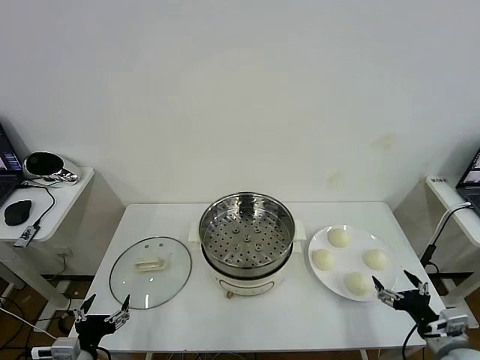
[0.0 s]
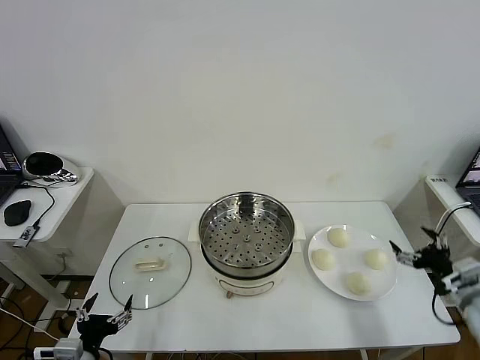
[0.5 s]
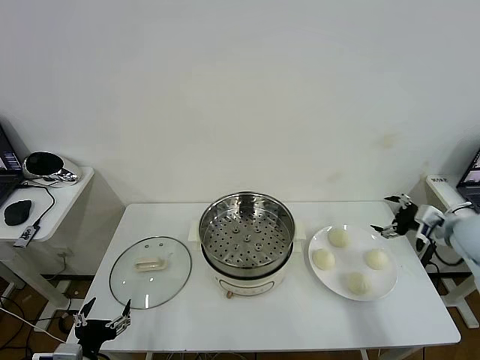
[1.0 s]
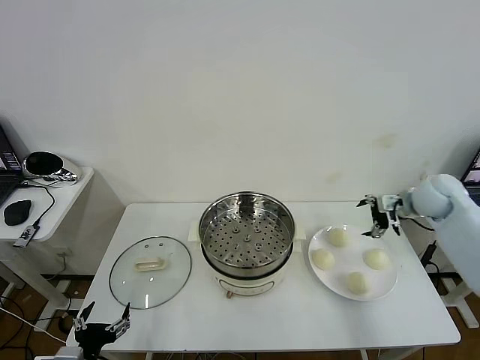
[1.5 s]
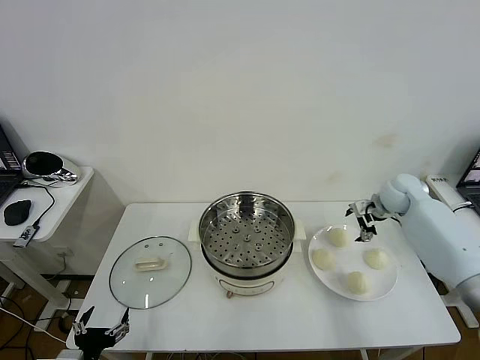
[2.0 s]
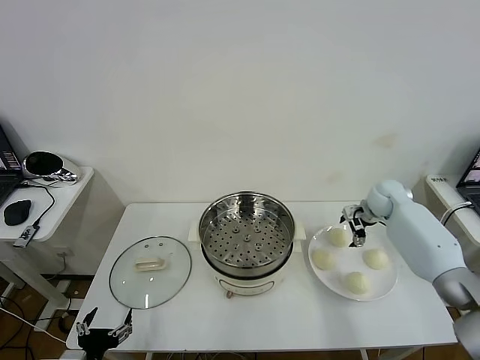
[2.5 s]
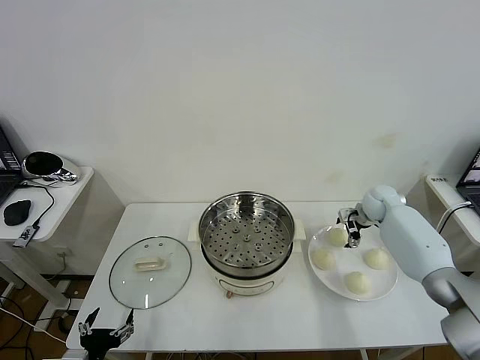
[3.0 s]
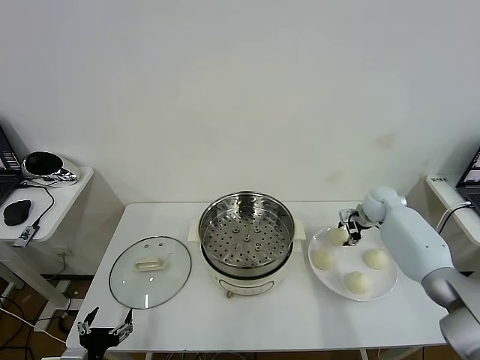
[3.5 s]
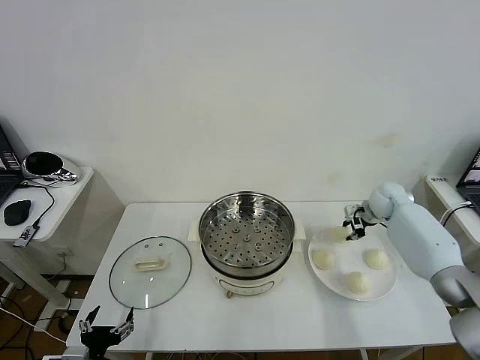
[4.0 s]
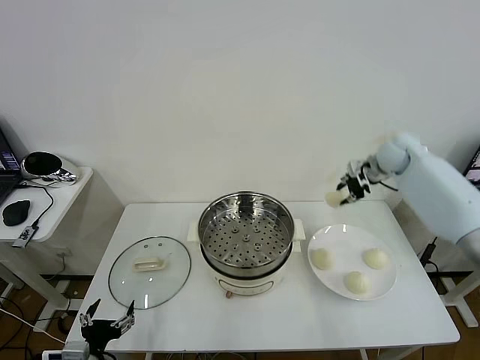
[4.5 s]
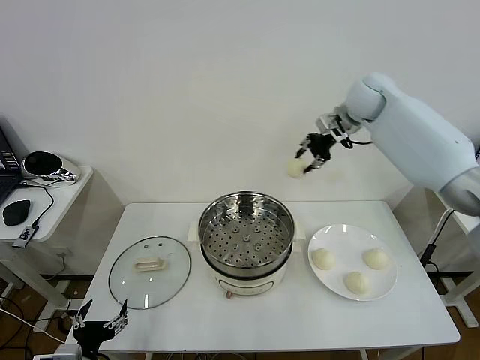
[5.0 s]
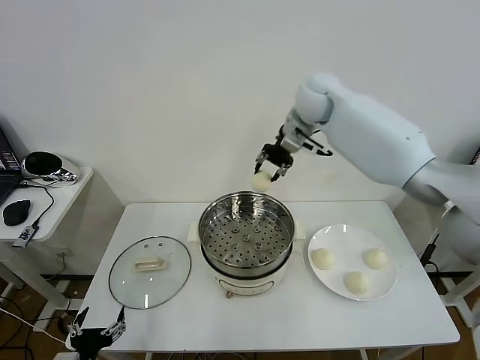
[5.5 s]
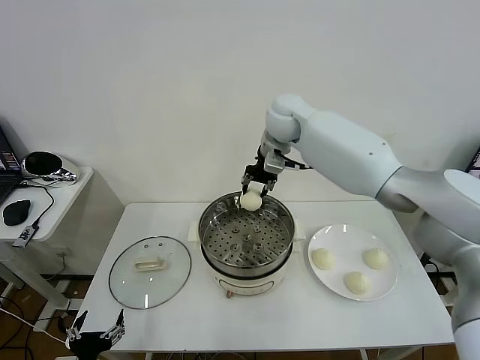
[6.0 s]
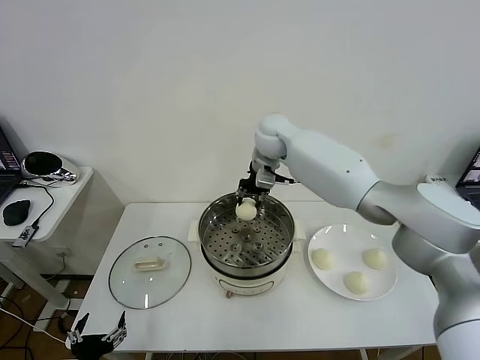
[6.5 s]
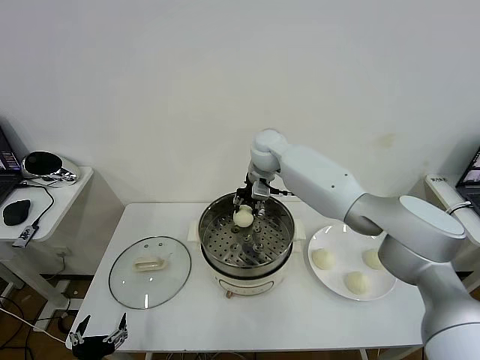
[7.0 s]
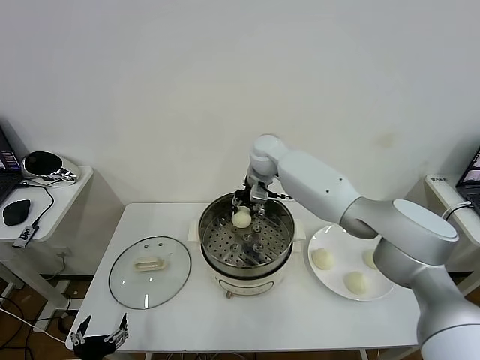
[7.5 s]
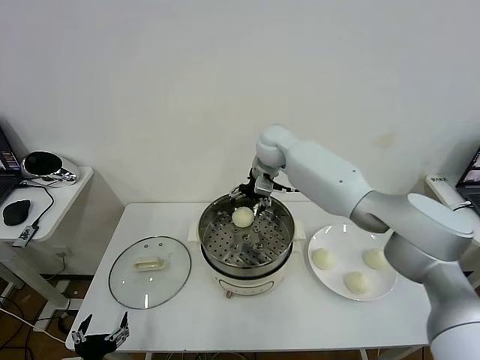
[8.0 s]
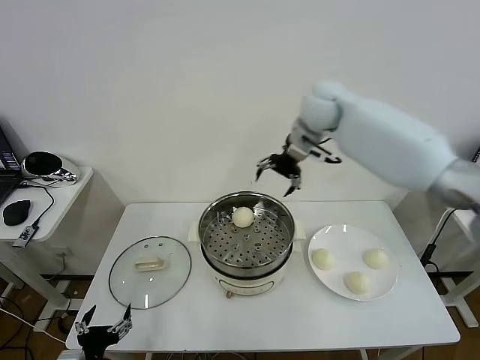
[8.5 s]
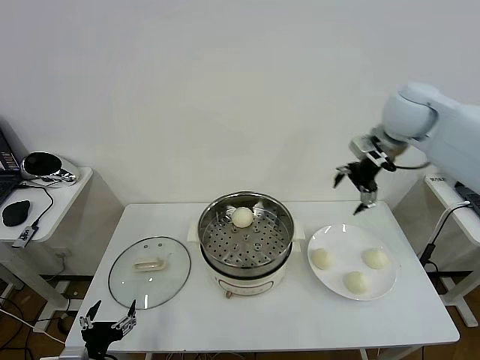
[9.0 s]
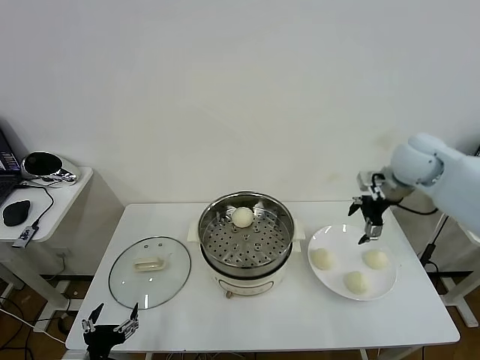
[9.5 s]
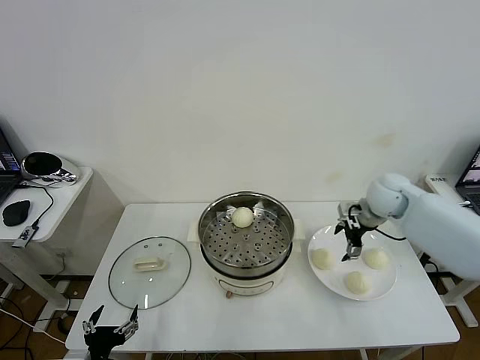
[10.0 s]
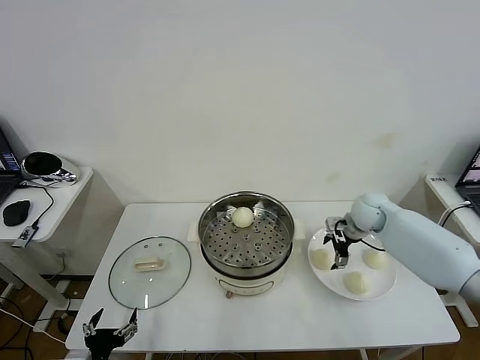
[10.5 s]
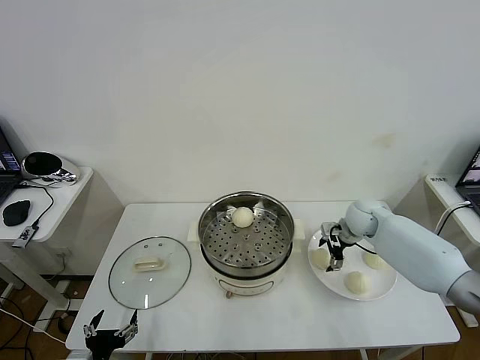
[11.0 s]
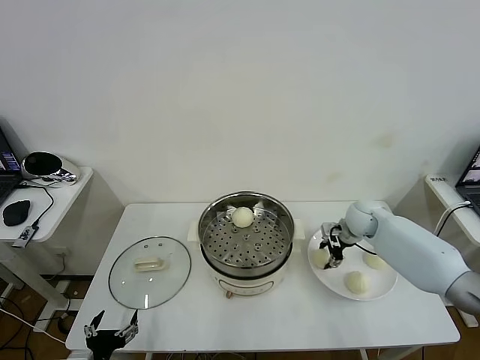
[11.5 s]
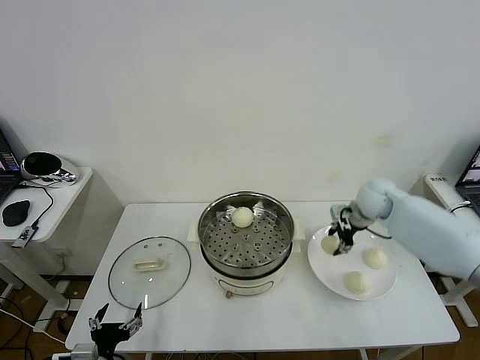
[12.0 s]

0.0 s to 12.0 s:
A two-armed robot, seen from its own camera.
Task of the whole recording: take steamed baozi put them in steamer then cover it.
Step, 0.0 to 3.5 s: Grasp the baozi in the plate with right gripper.
Step, 4.0 to 7.5 s: Place the baozi on the steamer with right gripper.
Step, 8.0 to 11.5 s: Grasp the baozi in the plate with right gripper.
2.0 to 4.0 s: The right gripper shifts by approximately 5 cm, and closes.
4.0 to 6.0 s: The right gripper travels to the left and upward by about 40 cm.
6.0 to 8.0 s: The right gripper is displaced downward by about 10 cm, and opens its fingers.
8.0 to 10.0 s: The right gripper goes approximately 30 cm to the right and backward.
10.0 to 12.0 s: The right gripper moves roughly 10 cm downward and comes back, and closes its fingers.

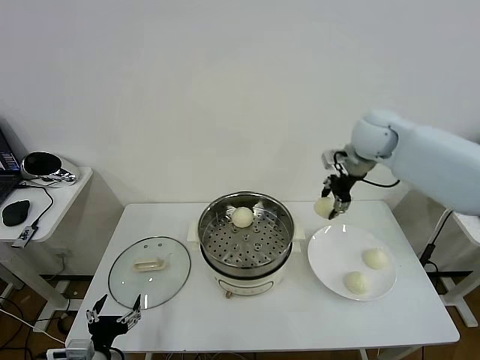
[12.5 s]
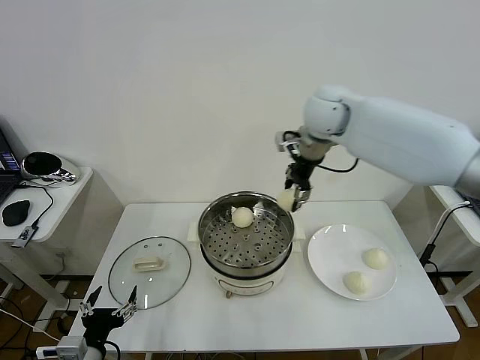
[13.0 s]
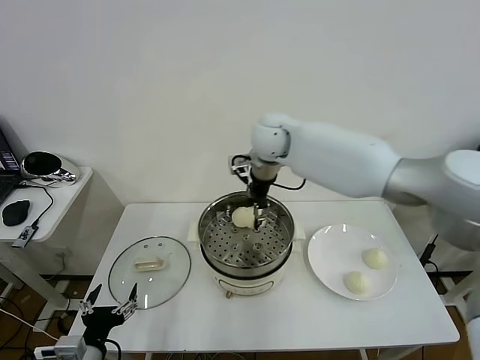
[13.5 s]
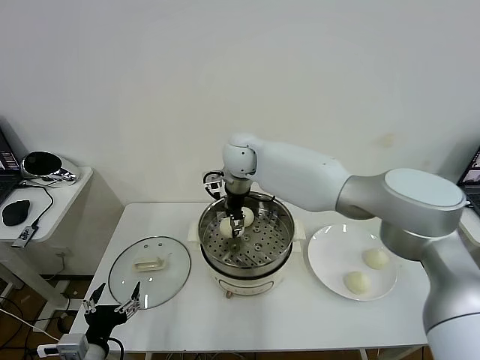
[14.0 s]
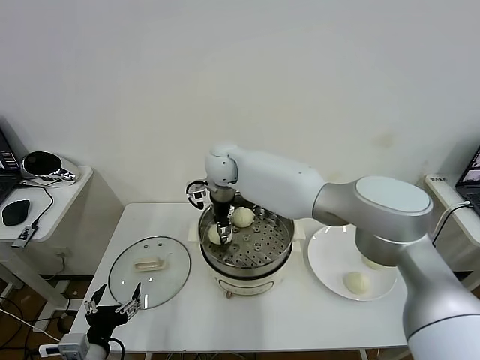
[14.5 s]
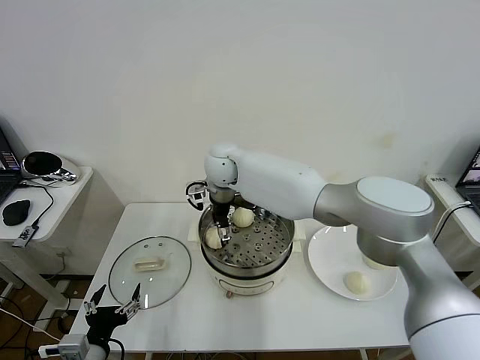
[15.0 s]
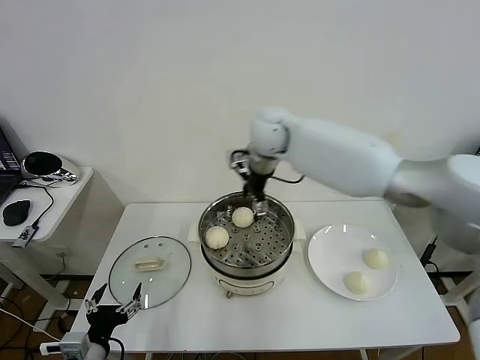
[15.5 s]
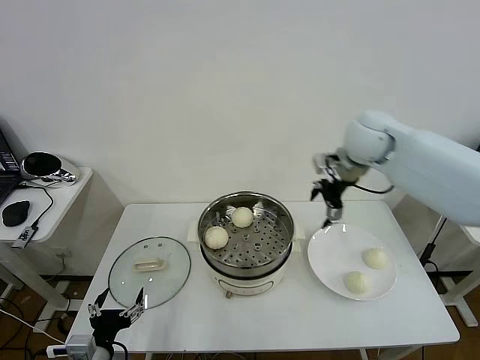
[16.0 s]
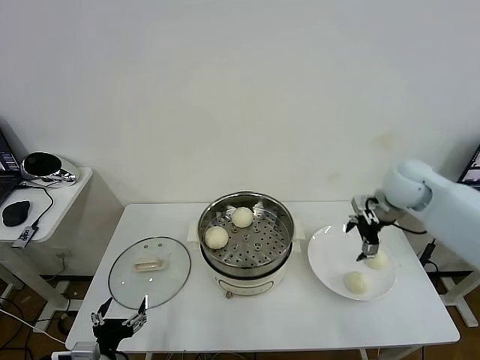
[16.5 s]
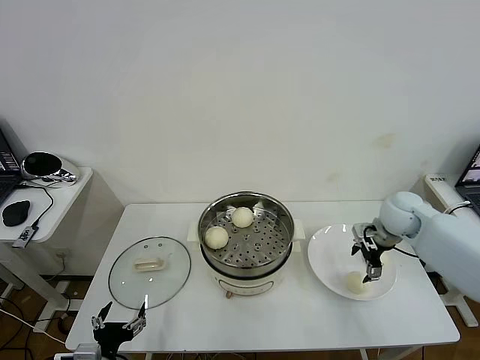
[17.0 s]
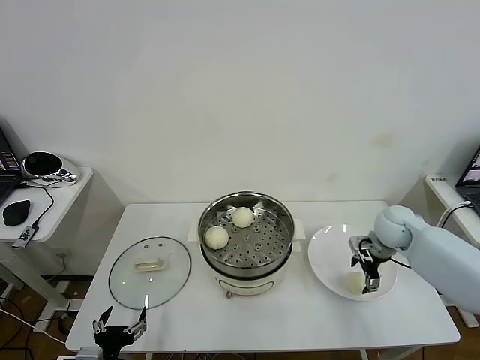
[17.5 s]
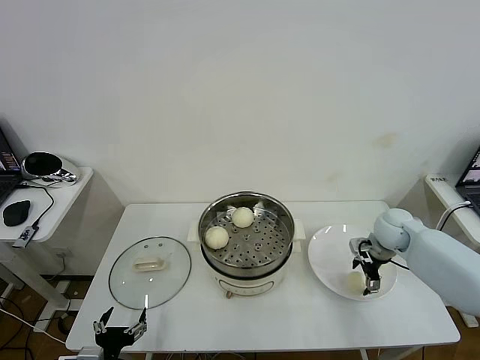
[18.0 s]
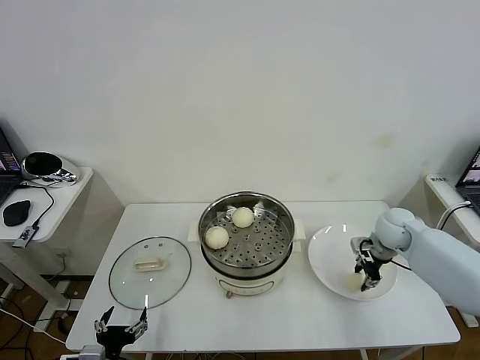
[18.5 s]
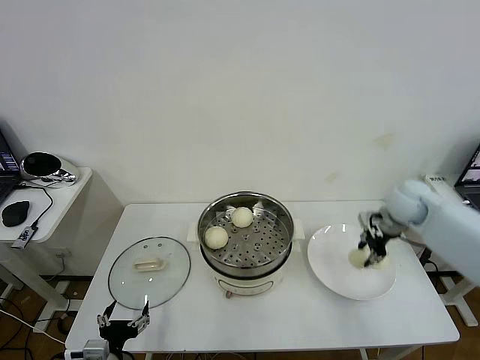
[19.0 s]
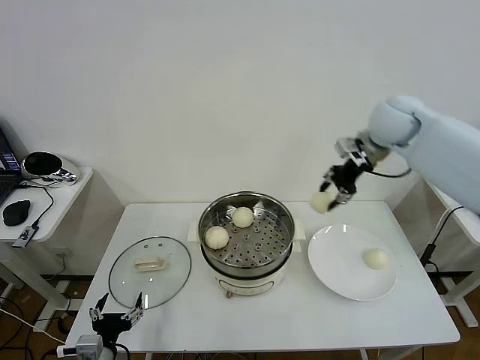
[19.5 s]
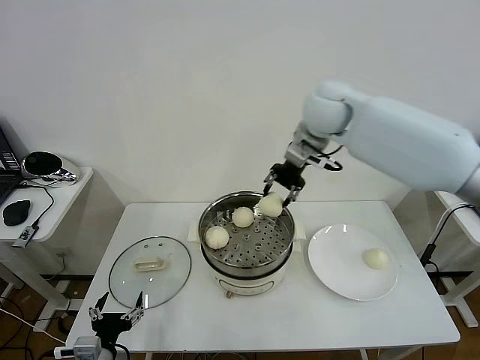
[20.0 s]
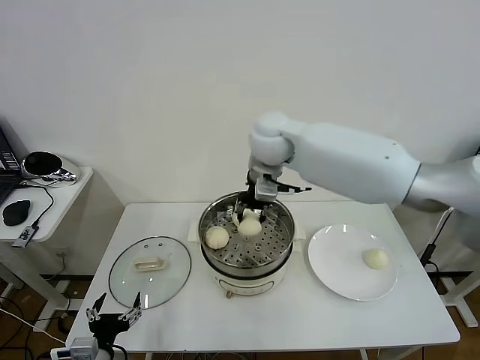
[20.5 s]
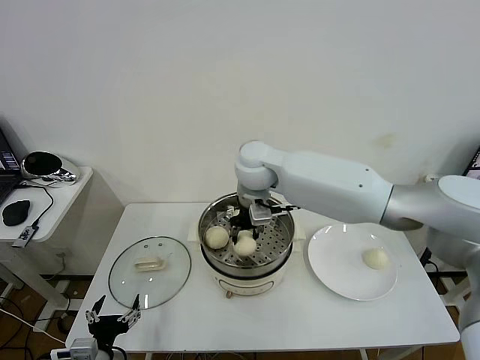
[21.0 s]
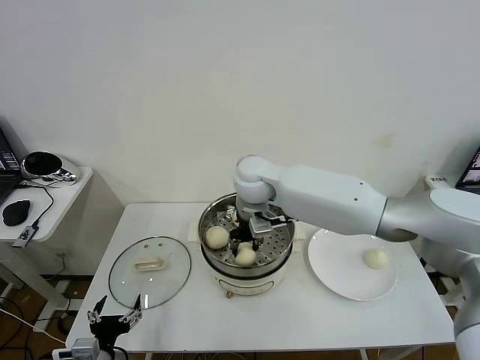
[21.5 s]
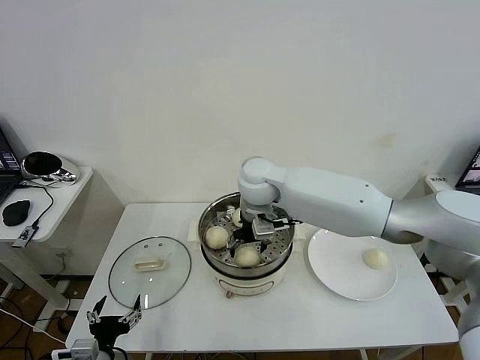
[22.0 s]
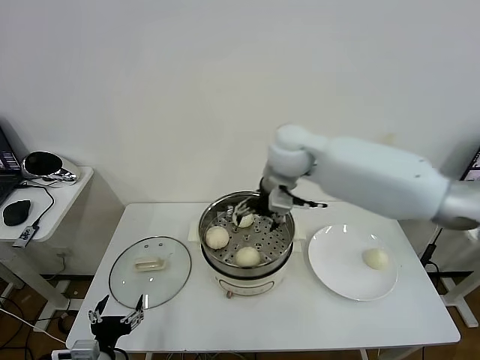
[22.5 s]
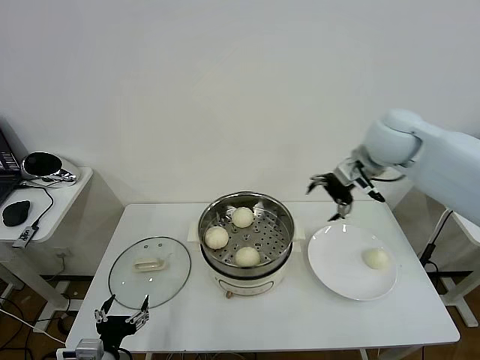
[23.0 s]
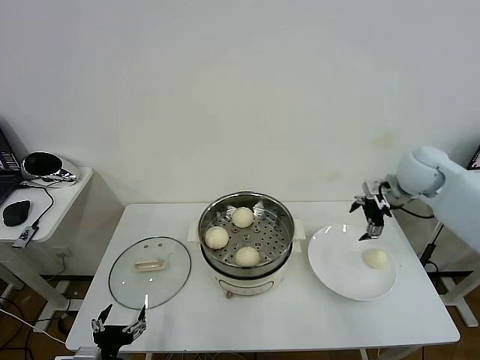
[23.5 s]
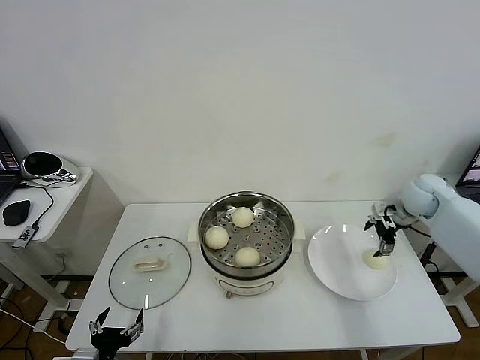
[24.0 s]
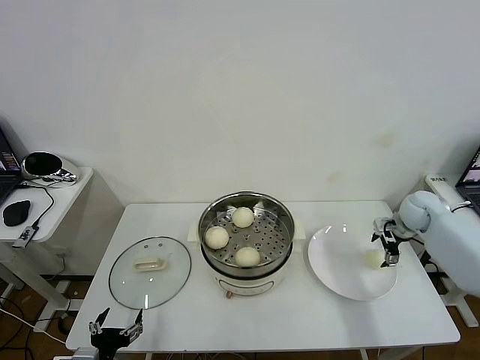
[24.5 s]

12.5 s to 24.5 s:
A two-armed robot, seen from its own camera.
Task of the whole recording: take steamed baozi put them in steamer then cover it.
Step, 12.5 to 15.0 s: Place the baozi on the steamer with right gripper.
Step, 15.5 to 18.5 s: Grasp the baozi in the plate with right gripper.
Step, 19.0 to 22.0 s: Place the baozi on the steamer with right gripper.
12.5 to 14.5 s: The right gripper heads to the left, covering roughly 30 cm.
14.5 to 16.5 s: The right gripper shifts about 40 cm to the right, and opens its fingers.
16.5 to 18.5 s: The right gripper is displaced downward by roughly 15 cm, and closes up.
18.5 to 20.5 s: The right gripper shifts about 40 cm to the left and upward.
20.5 to 22.5 s: The right gripper reaches some 10 cm downward, then returns, and opens its fingers.
22.5 to 24.5 s: The right gripper travels to the right and downward by some 40 cm.

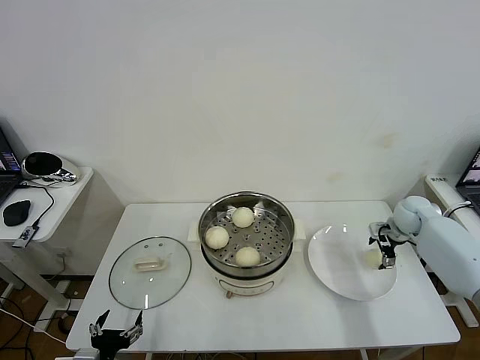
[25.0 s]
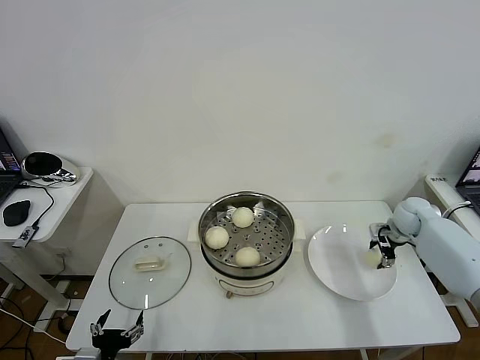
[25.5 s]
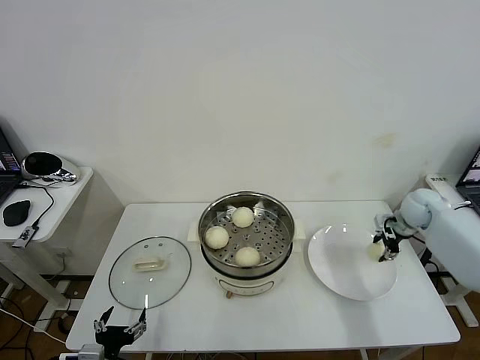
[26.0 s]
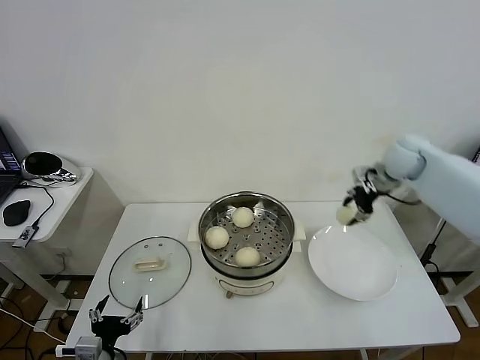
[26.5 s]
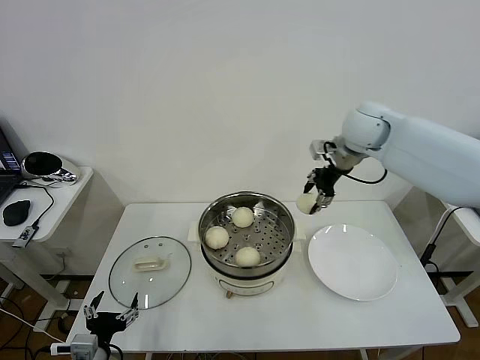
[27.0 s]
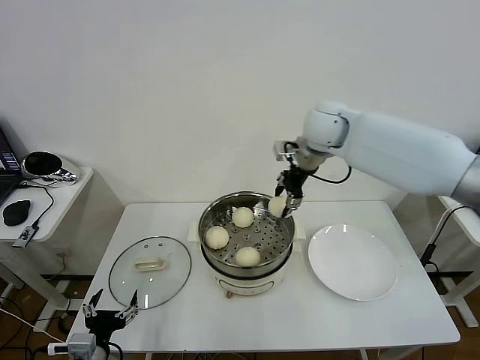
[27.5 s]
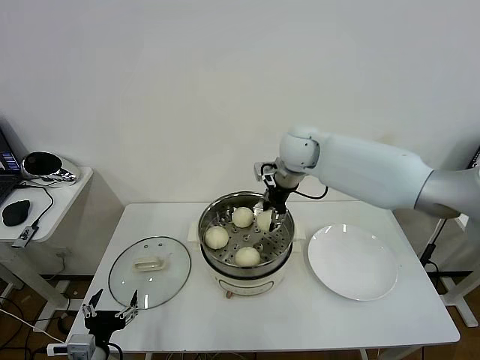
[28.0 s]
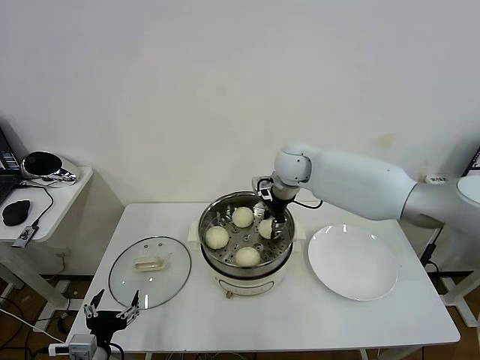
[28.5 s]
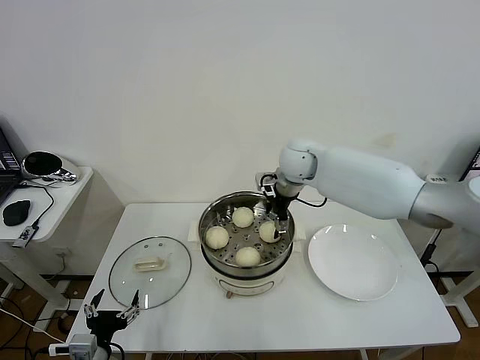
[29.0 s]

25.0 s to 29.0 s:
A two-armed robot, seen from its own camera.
Task of the whole recording: take steamed baozi put them in steamer then cover it.
25.0 to 27.0 s: The right gripper goes about 30 cm upward and to the left, and closes up.
27.0 to 29.0 s: The right gripper moves to the left and downward, some 15 cm, and opens up.
